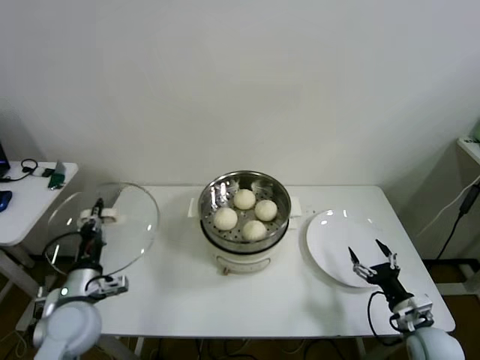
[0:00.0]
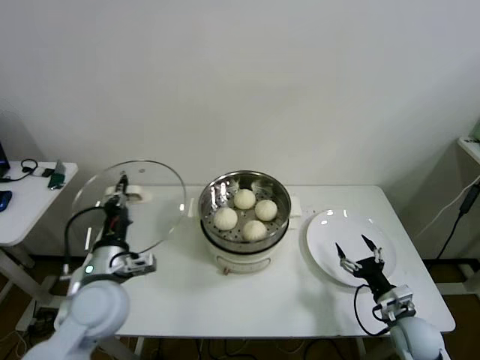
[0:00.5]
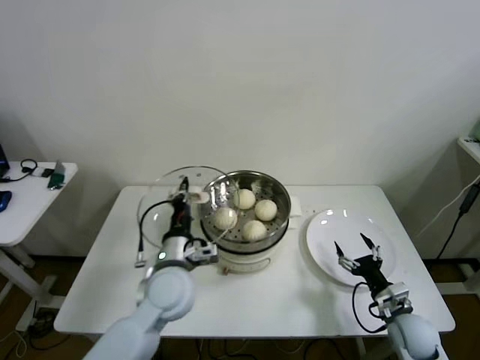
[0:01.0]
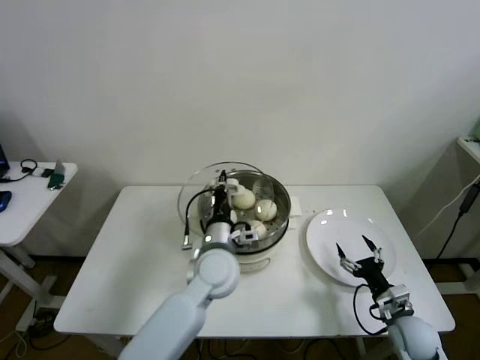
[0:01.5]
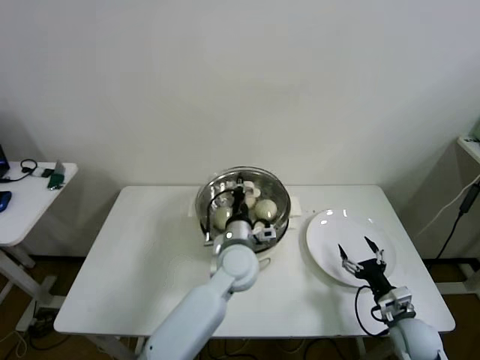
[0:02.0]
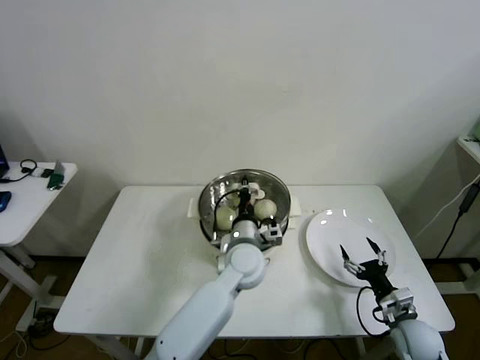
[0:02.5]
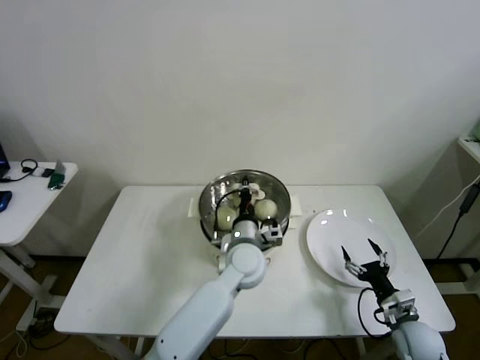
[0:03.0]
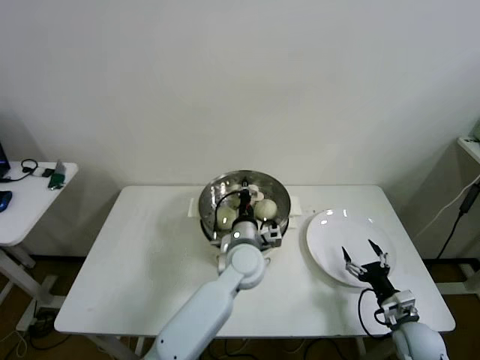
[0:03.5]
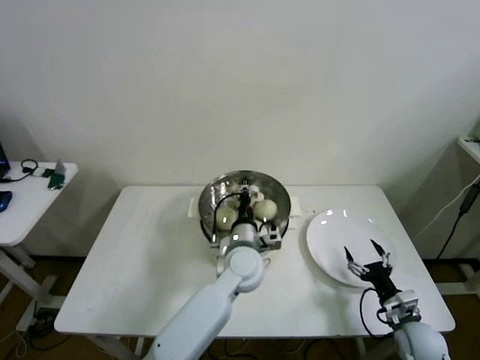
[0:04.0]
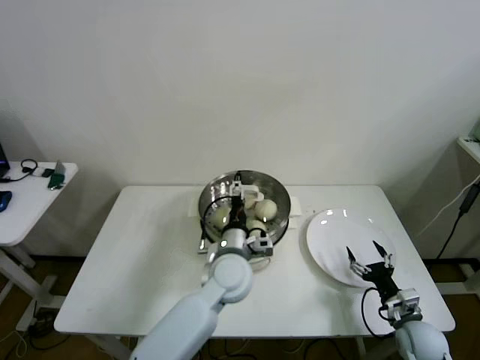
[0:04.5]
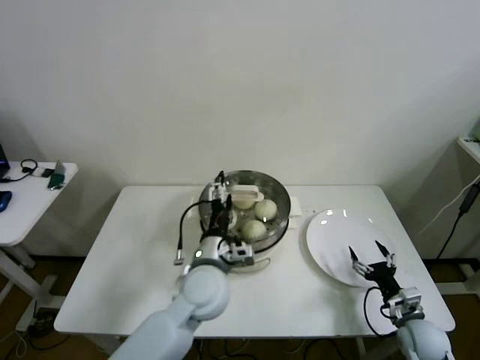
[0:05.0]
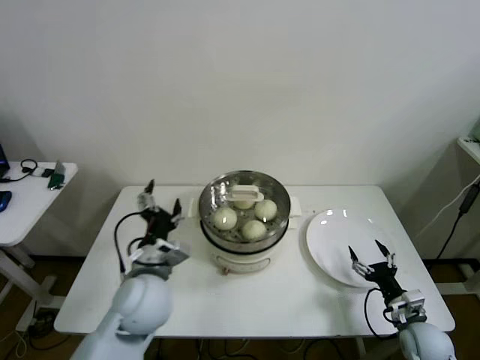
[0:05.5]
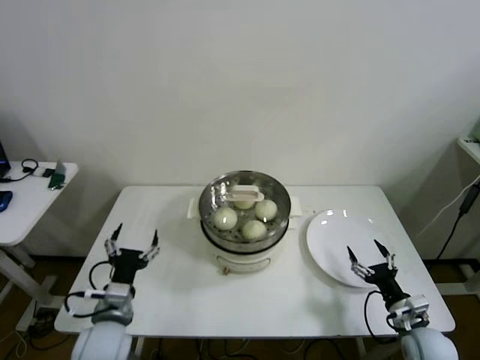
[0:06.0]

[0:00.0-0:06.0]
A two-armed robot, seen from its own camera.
Step, 0:00.0 to 0:03.5: Place the pot lid on the steamer with left gripper.
0:00.0 to 0:02.0: The left gripper shifts roughly 30 cm to the right.
0:02.0 to 0:04.0: The grippers move only a little.
0:04.0 to 0:06.0: The left gripper shifts about 30 cm to the left and backward, and opens its fingers.

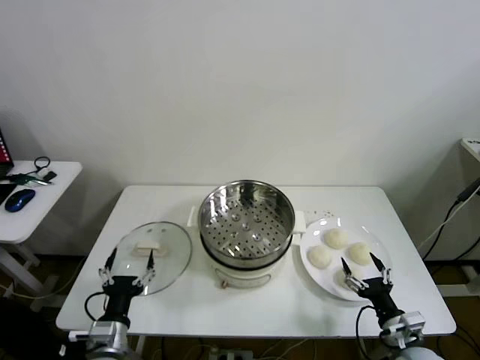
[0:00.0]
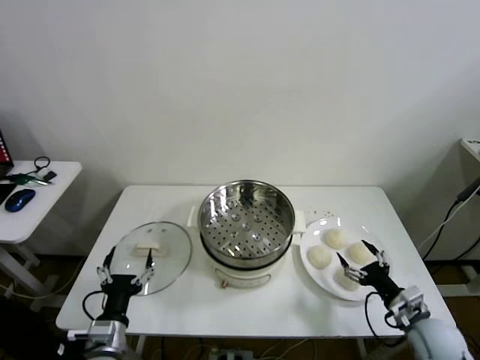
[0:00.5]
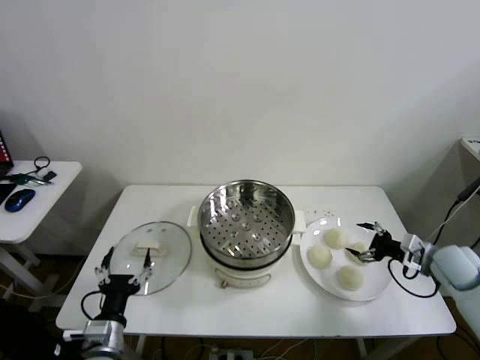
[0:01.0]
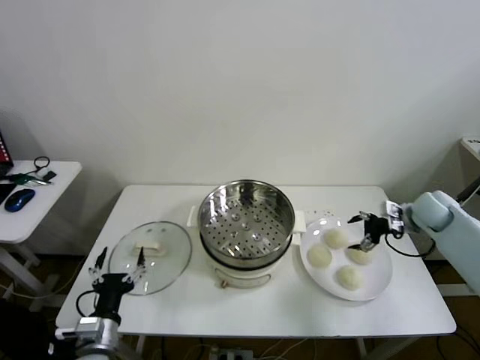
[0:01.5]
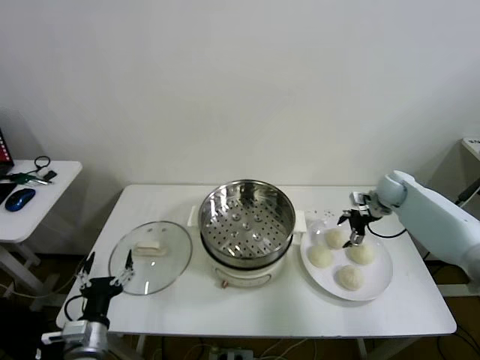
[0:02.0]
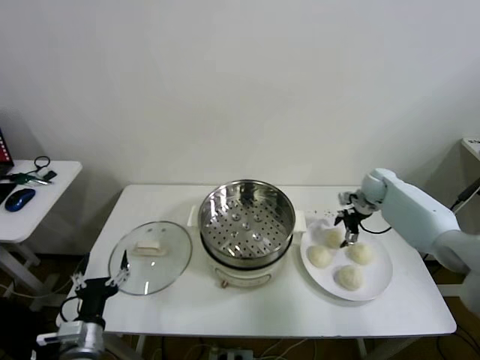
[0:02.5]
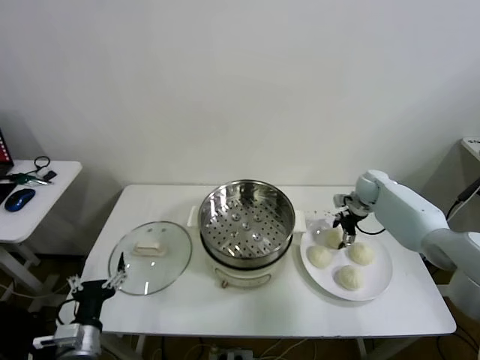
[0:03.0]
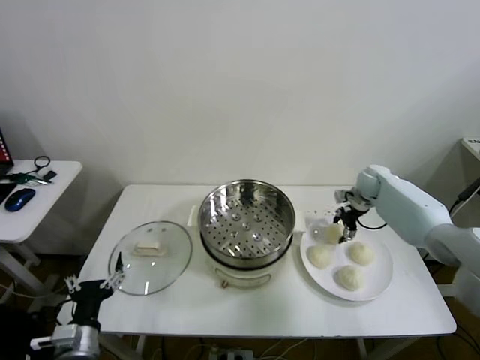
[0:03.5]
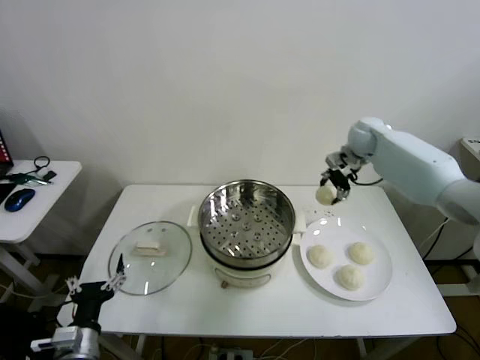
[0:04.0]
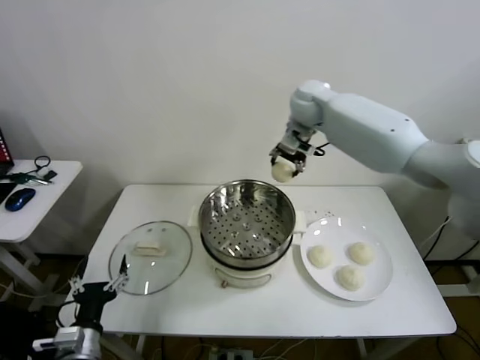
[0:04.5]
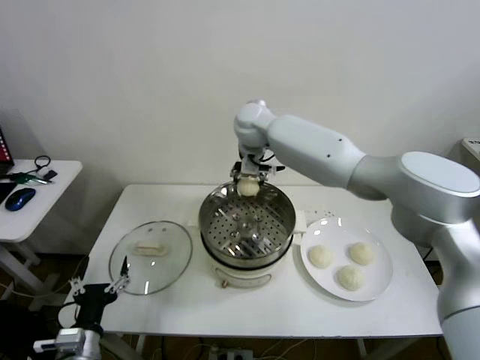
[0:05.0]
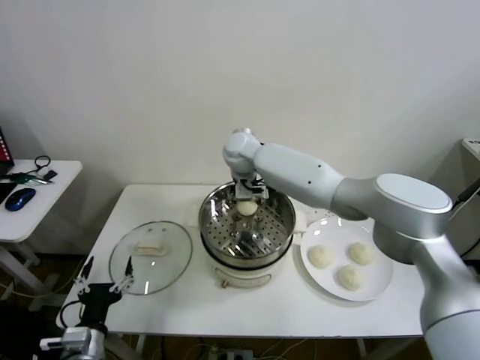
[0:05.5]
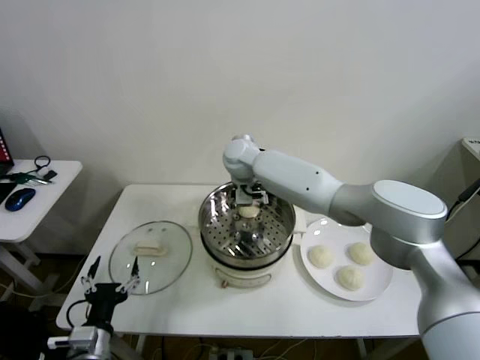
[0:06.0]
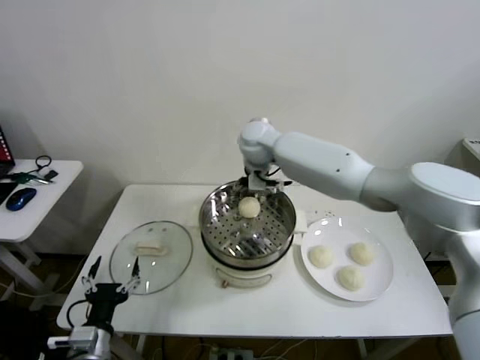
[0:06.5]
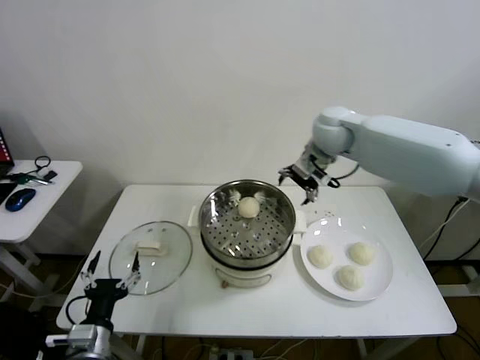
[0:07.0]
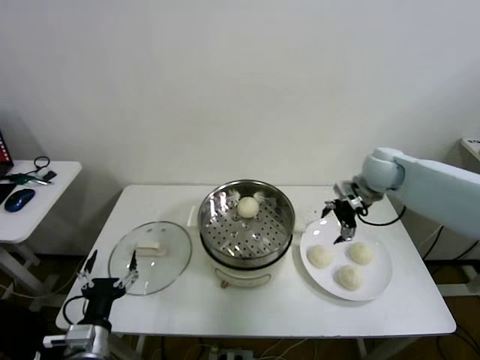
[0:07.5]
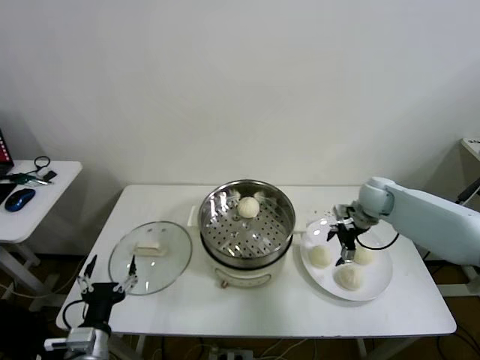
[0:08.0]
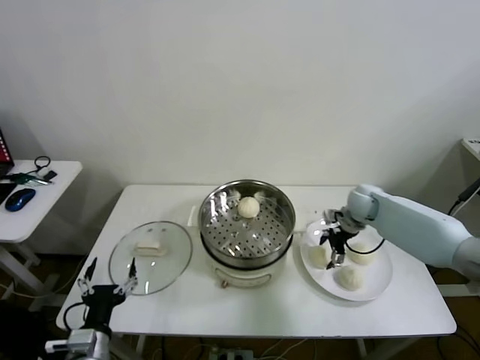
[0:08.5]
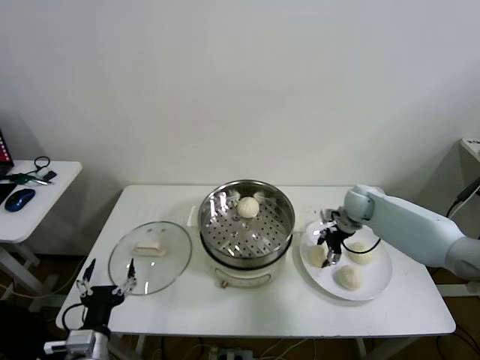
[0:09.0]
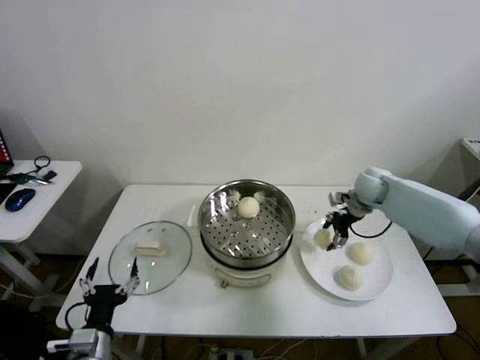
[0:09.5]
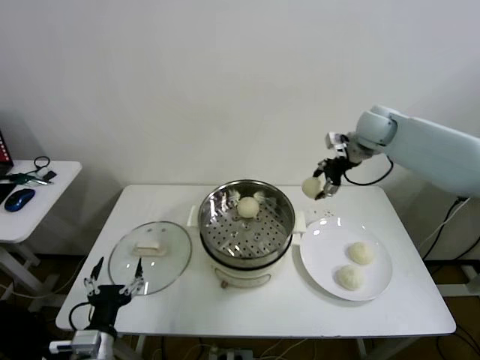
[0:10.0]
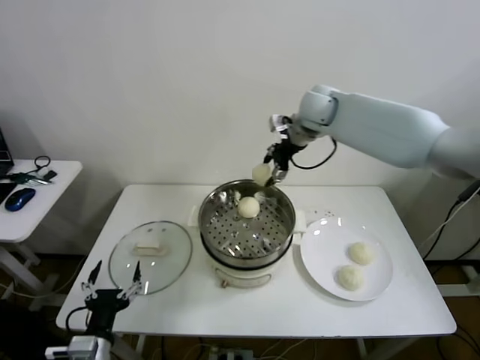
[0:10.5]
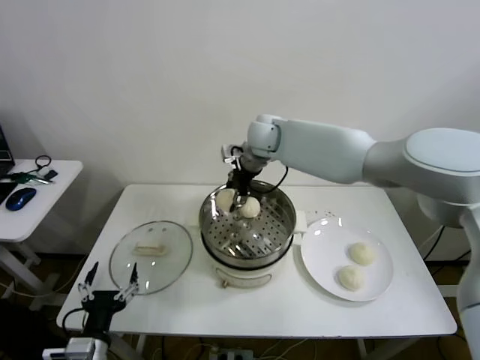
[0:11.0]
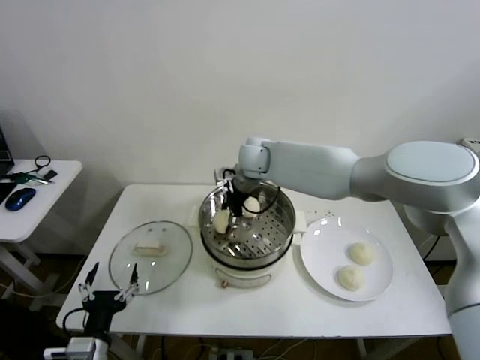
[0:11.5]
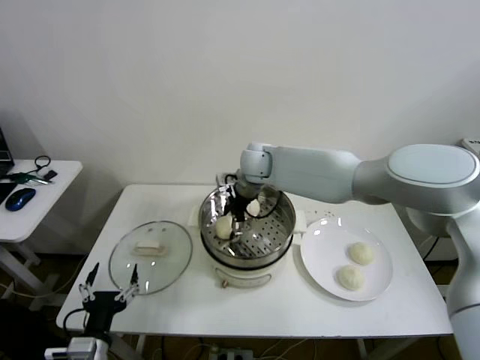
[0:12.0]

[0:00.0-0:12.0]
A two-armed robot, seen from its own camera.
Step, 0:00.0 to 0:03.0: Grasp the baozi in the plate with right gripper.
Step, 0:03.5 to 0:06.0: Place the baozi on the steamer with right gripper.
Step, 0:06.5 to 0:09.0: Grasp the baozi in the plate with right gripper.
Step, 0:09.5 to 0:12.0: Place the baozi on the steamer with right gripper.
0:02.0 to 0:04.0: The right gripper travels upward and to the left by about 20 cm, and closes.
0:04.0 to 0:06.0: The right gripper goes about 30 cm to the left, and opens its fingers.
0:06.0 to 0:08.0: The right gripper shifts approximately 35 cm to the right.
0:08.0 to 0:10.0: The right gripper is displaced upward by some 20 cm, and closes its fingers.
0:10.0 to 0:12.0: The right gripper travels to the left by some 25 cm, and opens up.

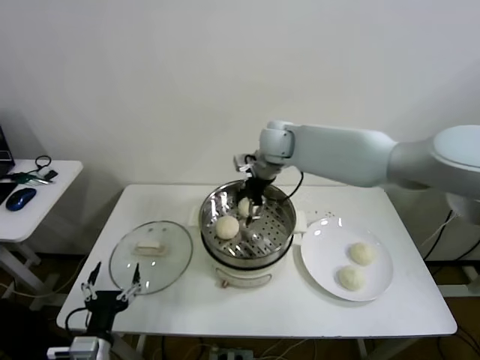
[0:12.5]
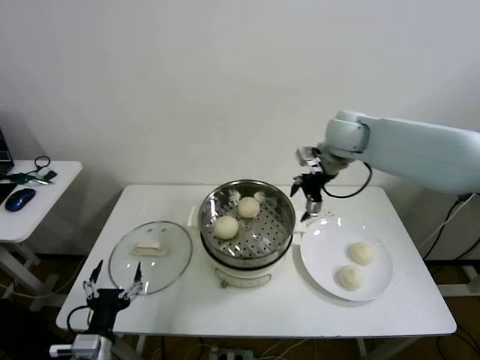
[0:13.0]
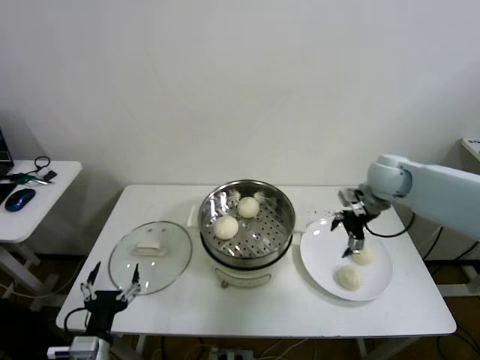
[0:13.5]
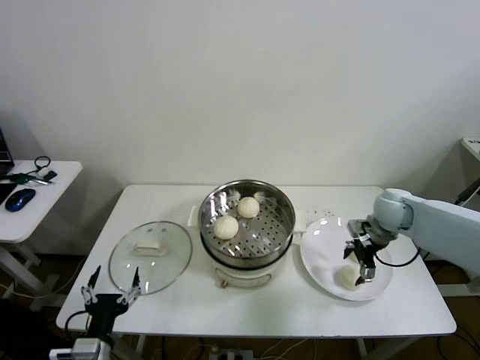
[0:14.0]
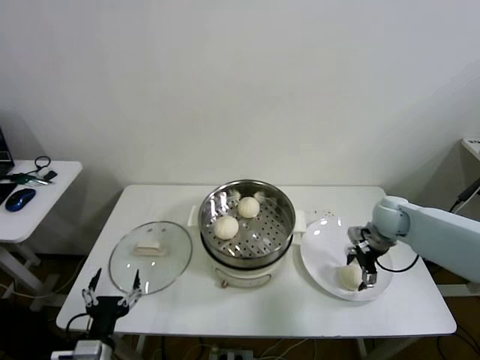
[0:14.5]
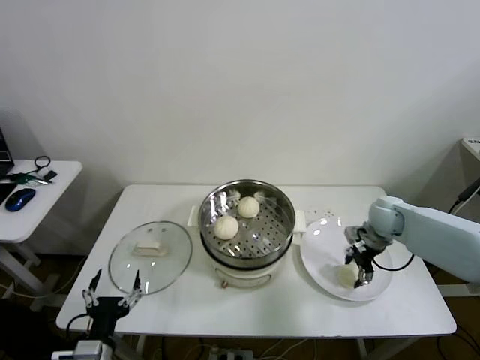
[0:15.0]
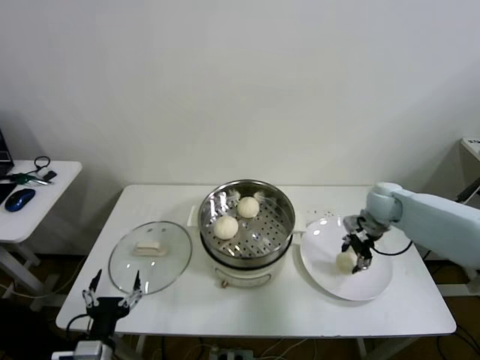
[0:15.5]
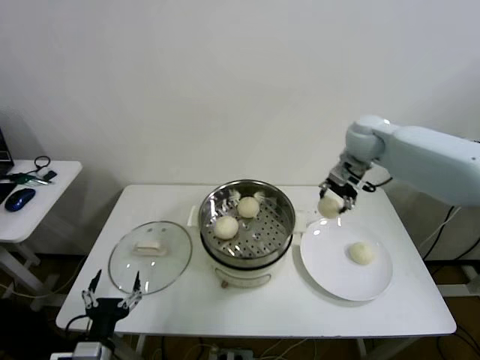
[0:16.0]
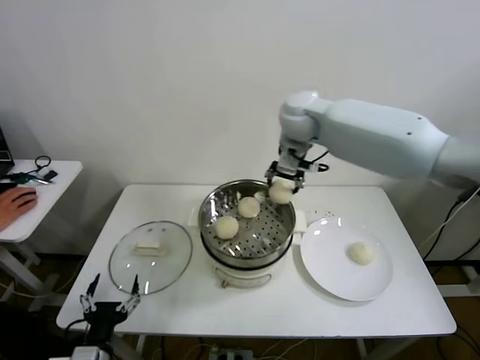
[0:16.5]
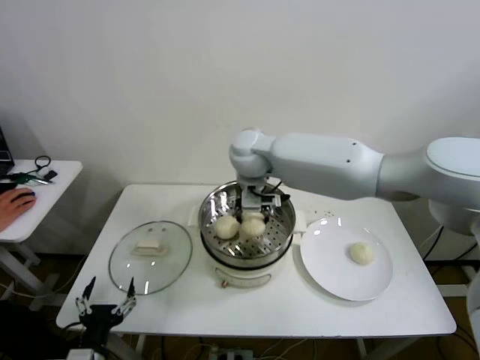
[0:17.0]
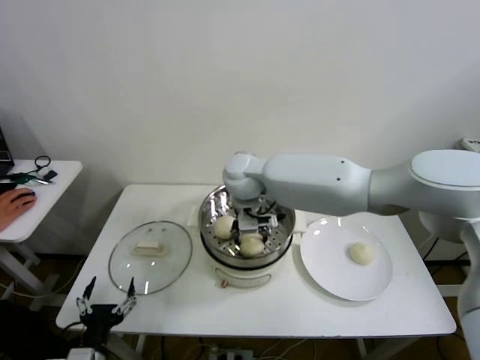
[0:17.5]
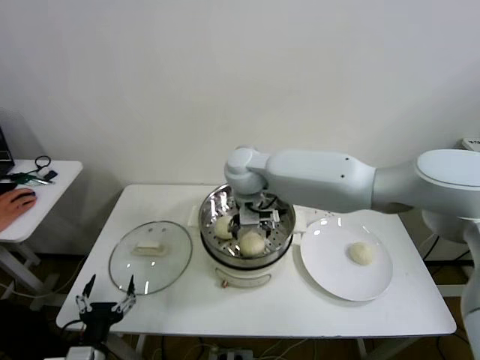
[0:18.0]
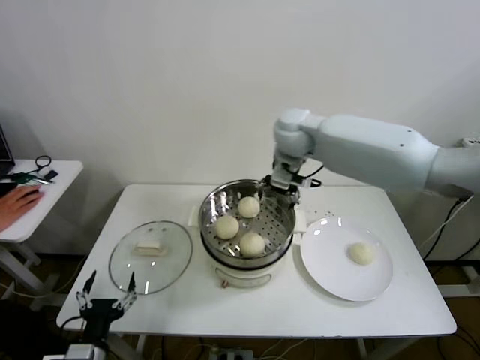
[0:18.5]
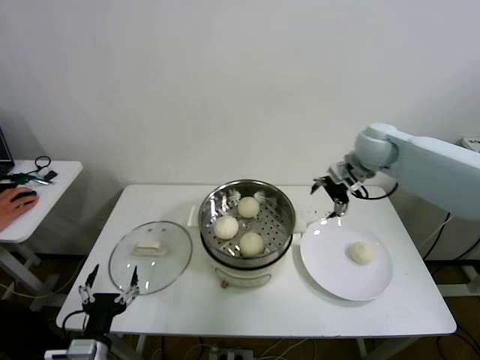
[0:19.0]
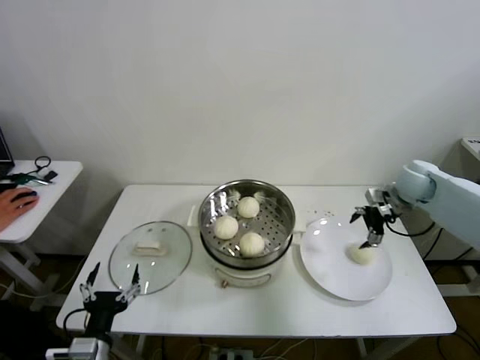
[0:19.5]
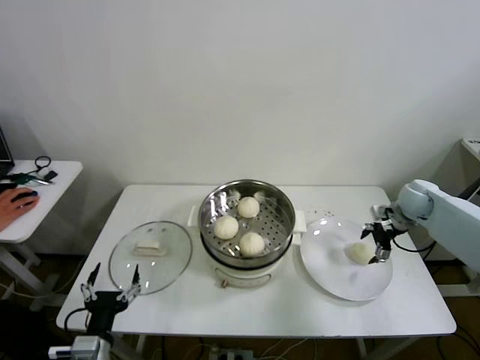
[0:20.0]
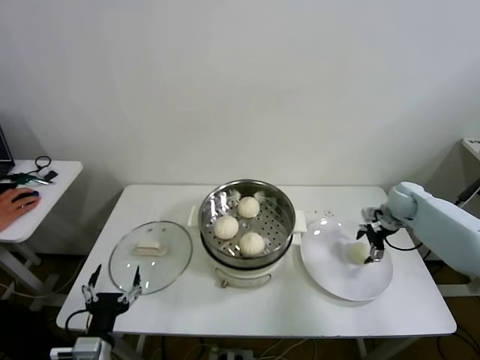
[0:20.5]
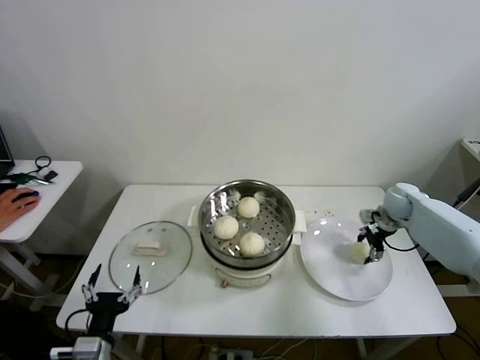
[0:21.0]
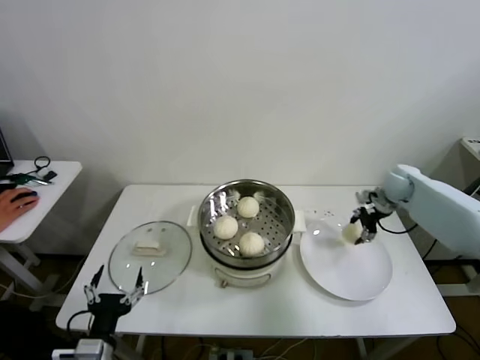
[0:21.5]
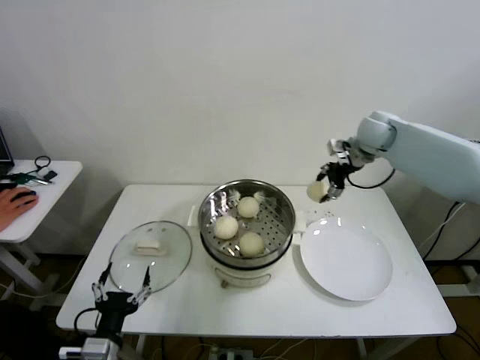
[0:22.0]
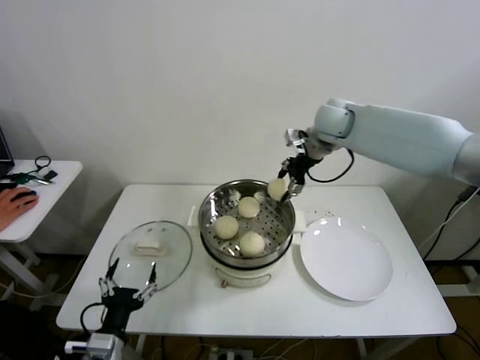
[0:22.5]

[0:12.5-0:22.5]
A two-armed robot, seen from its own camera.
Step, 0:12.5 to 0:15.0: Grasp the baozi in the plate with right gripper.
Step, 0:15.5 to 0:17.5: Place the baozi on the steamer with right gripper.
Step, 0:18.0 to 0:21.0: Grasp the baozi in the plate with right gripper.
0:12.5 to 0:14.5: The right gripper heads to the right and downward, covering some 35 cm.
0:14.5 to 0:16.5: The right gripper travels to the left and upward by about 35 cm, and closes up.
0:16.5 to 0:18.5: The right gripper moves approximately 10 cm to the left and comes back, and opens.
0:18.5 to 0:20.5: The right gripper heads to the right and downward, covering some 40 cm.
0:20.5 to 0:22.5: The right gripper travels to the left and upward by roughly 30 cm, and closes up.
